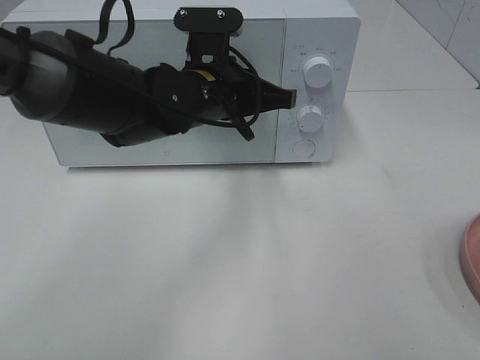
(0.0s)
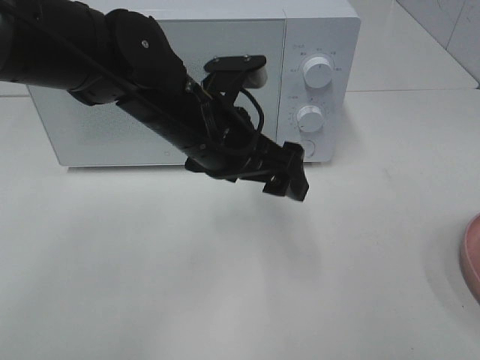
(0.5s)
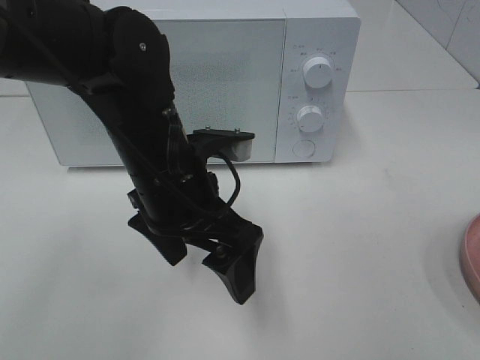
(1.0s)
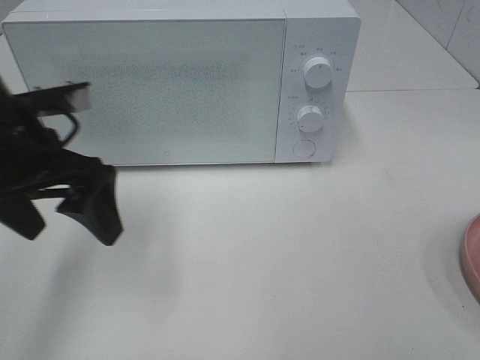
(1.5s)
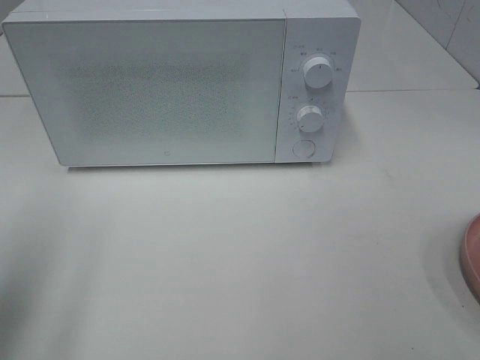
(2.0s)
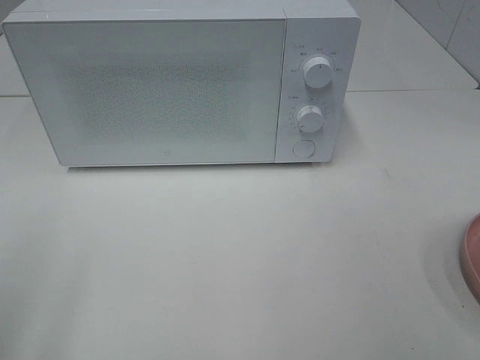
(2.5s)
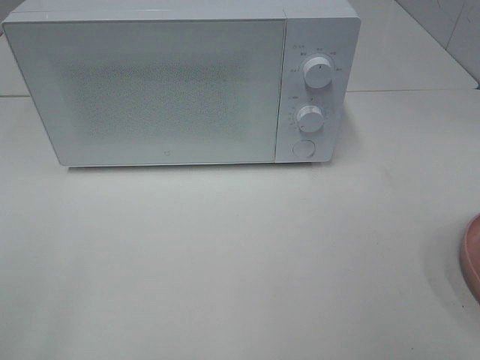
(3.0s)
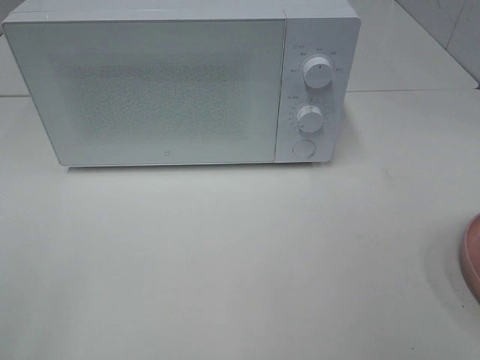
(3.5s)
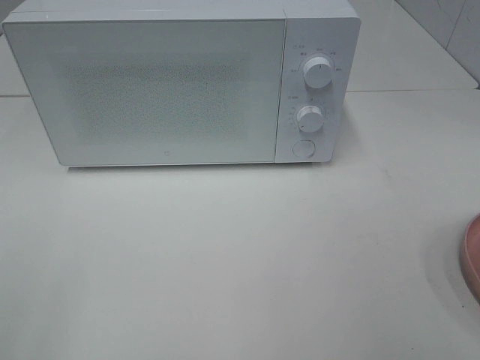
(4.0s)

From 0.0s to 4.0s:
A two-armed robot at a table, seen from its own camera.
Task of the whole recording: Heat the burger.
From 0.0s to 2.0s: The left gripper shifts about 35 cm to the left and backward, and opens.
From 2.0s to 4.0s: The left gripper goes some 15 cm backward.
